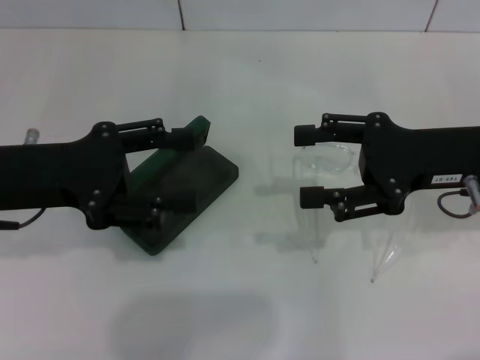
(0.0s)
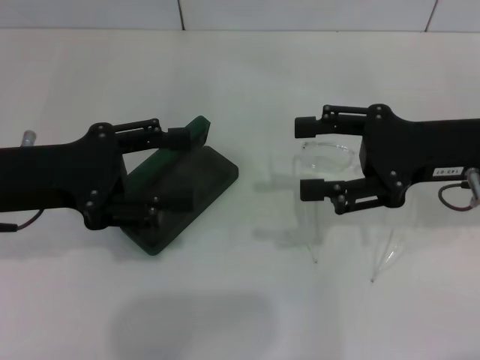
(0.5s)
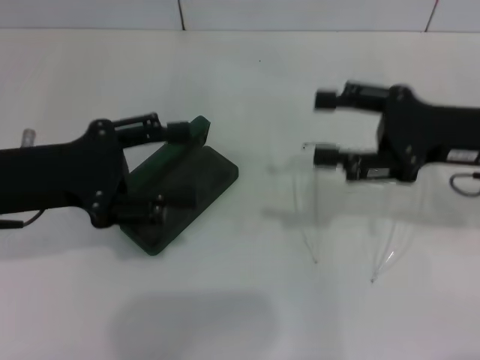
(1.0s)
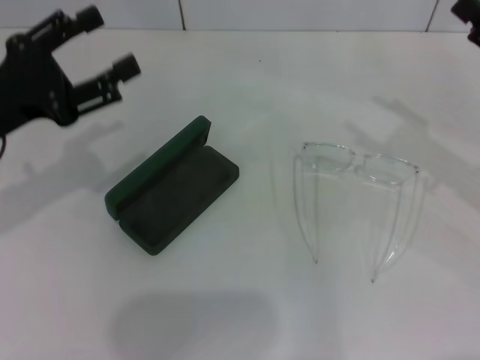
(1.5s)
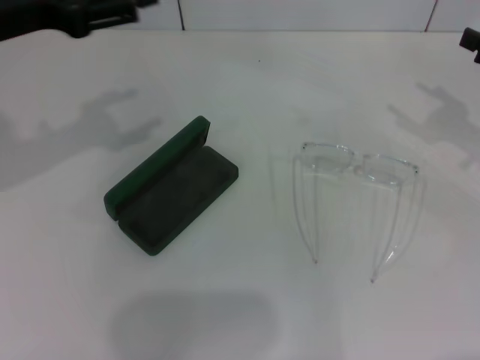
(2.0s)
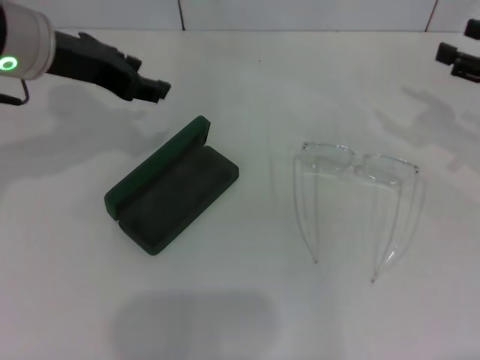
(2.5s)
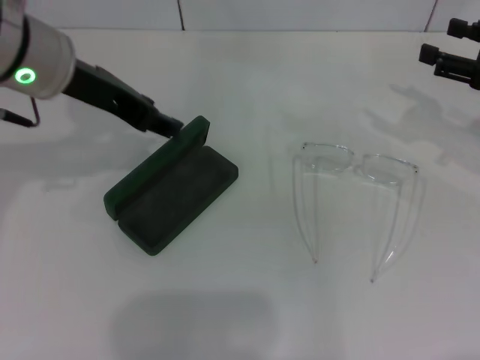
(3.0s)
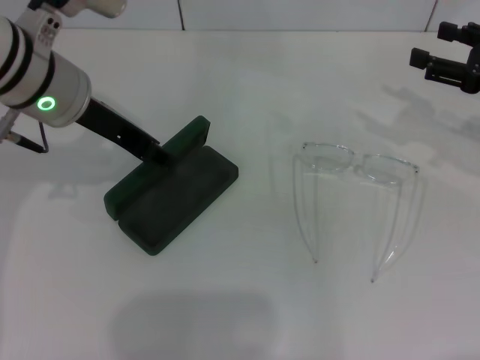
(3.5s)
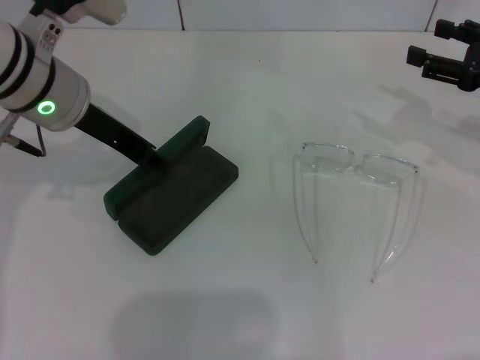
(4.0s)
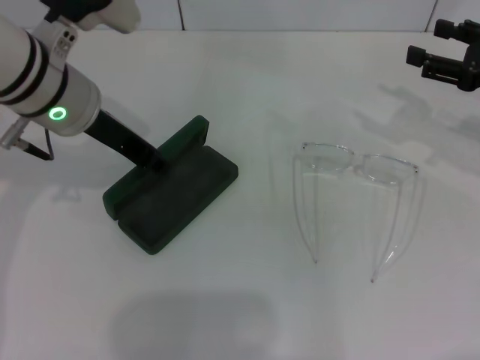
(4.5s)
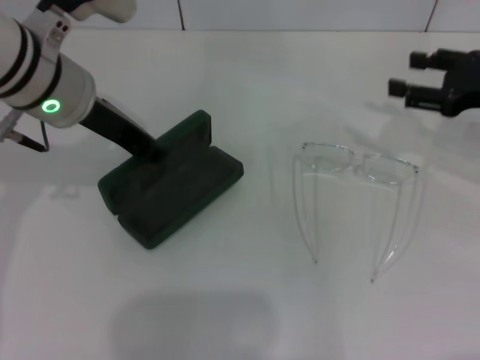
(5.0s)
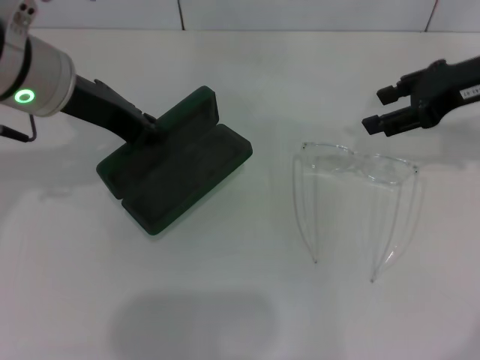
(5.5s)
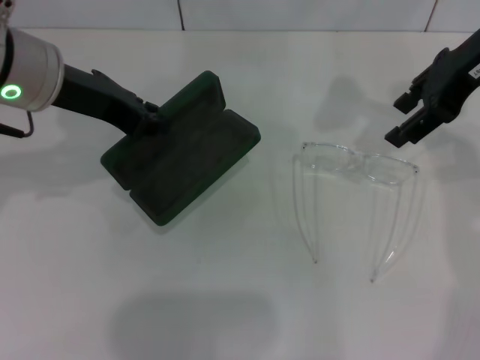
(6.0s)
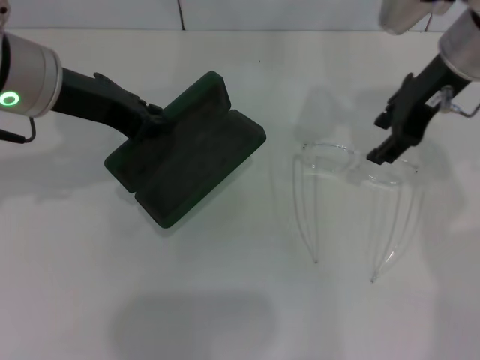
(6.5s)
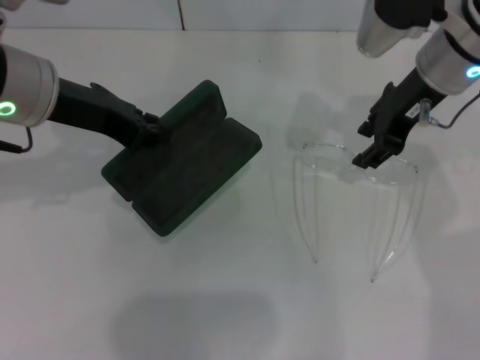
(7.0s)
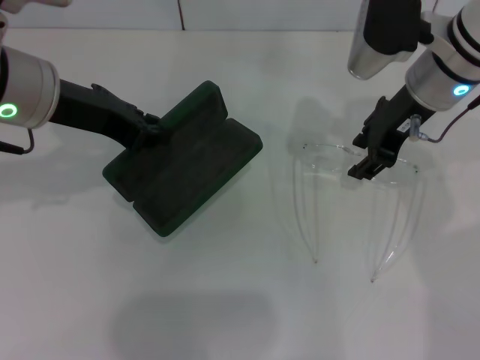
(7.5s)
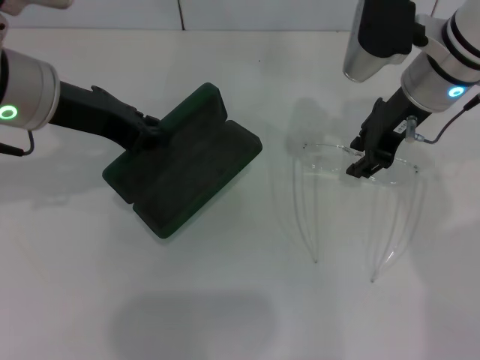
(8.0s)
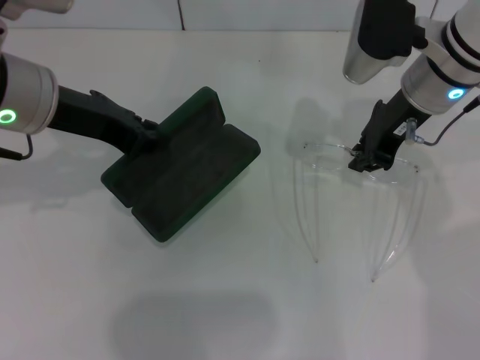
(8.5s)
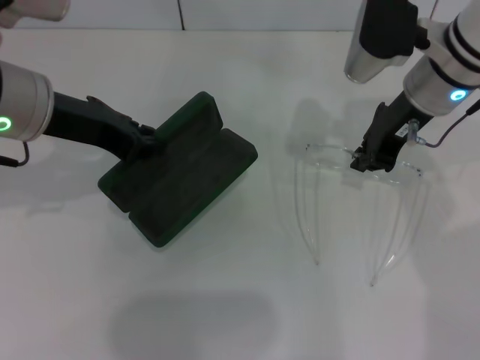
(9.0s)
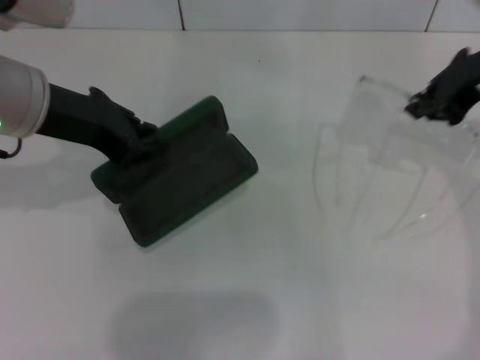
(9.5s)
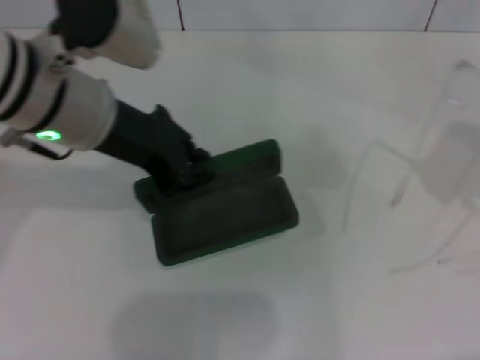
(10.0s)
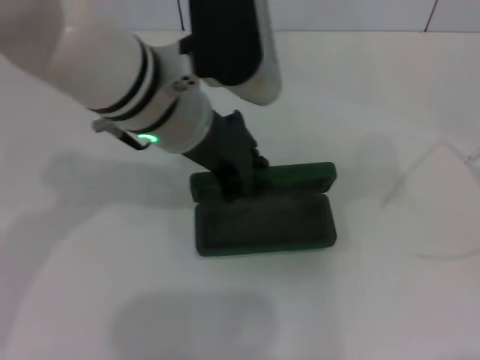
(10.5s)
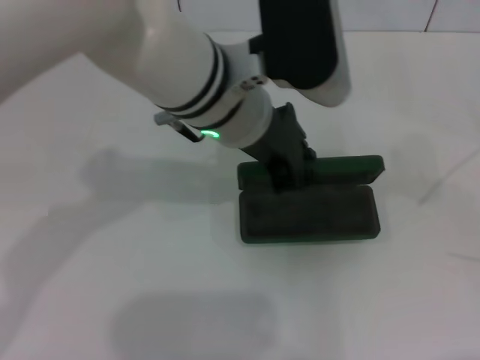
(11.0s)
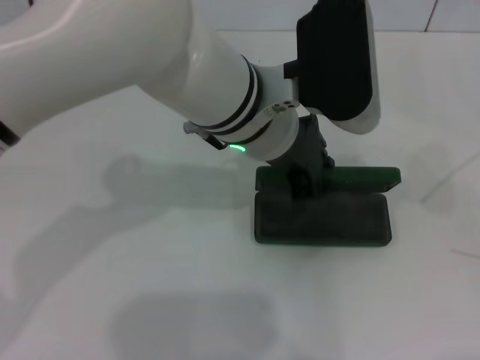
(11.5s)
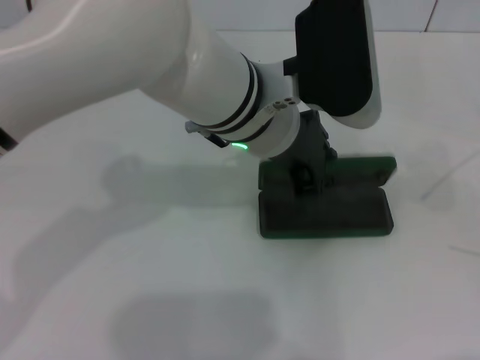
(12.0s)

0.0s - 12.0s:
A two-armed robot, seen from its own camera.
Step, 0.0s - 4.5s: Grab the glasses case with your left hand.
Step, 5.0s - 8.5s: Grab the eyeglass frame with your right hand.
0.0s - 2.0s: The right gripper shifts some 15 cm to the right. The left gripper goes approximately 10 cm upward.
2.0s - 4.0s: The left gripper is displaced to the right by approximately 10 cm.
4.0s - 6.0s: The right gripper shifts some 15 cm upward and to the left. The left gripper closes its fingers.
6.0s - 8.0s: The right gripper heads downward and to the left, covering roughly 10 cm.
8.0s - 10.0s: The left gripper goes roughly 5 cm to the right. Meanwhile the right gripper heads to the right, backward and upward, covering roughly 25 cm, and closes.
10.0s - 12.0s: The left gripper moves to the right, roughly 15 cm. The right gripper shifts roughly 15 cm to the right and backward.

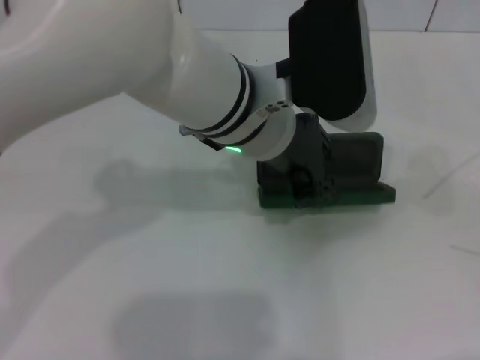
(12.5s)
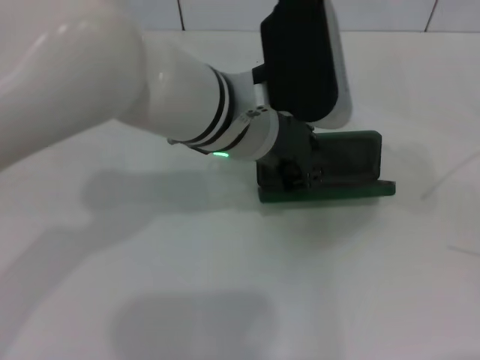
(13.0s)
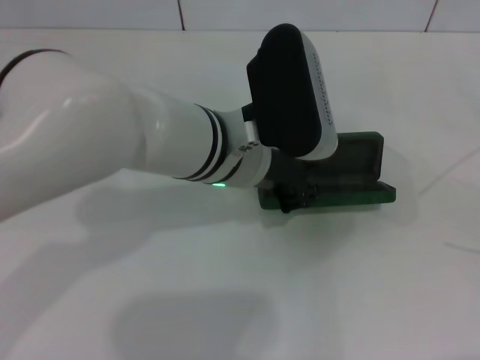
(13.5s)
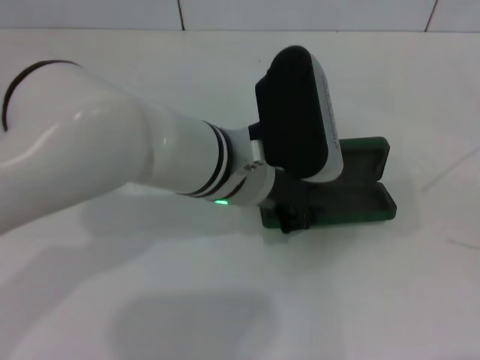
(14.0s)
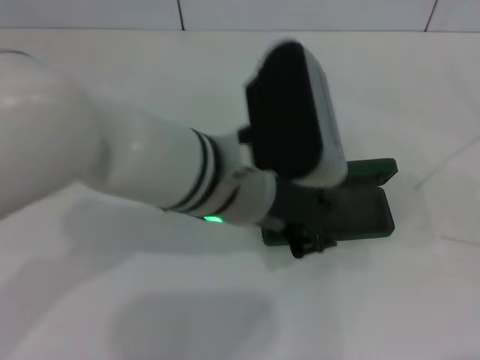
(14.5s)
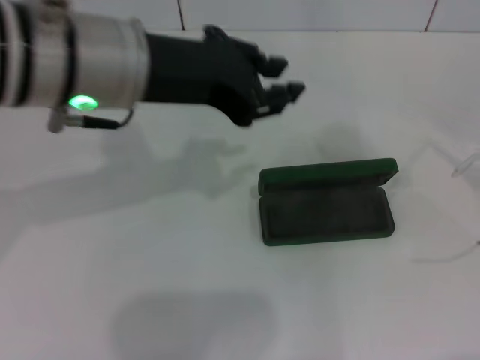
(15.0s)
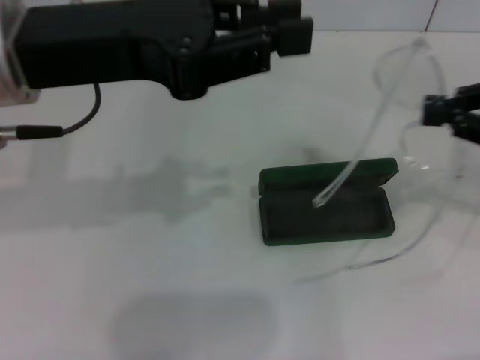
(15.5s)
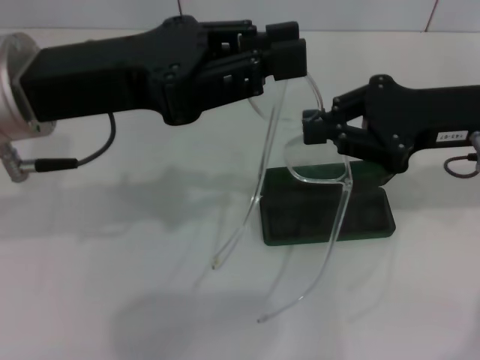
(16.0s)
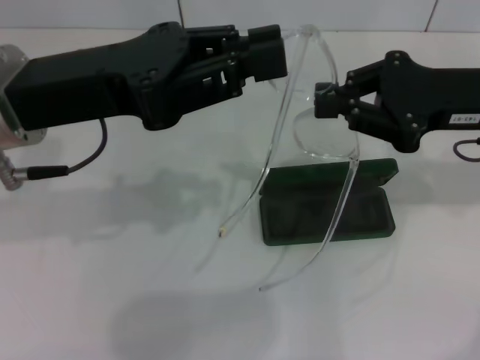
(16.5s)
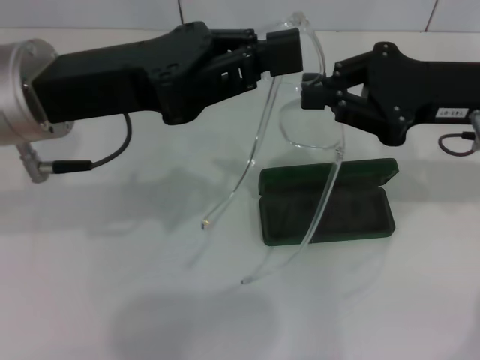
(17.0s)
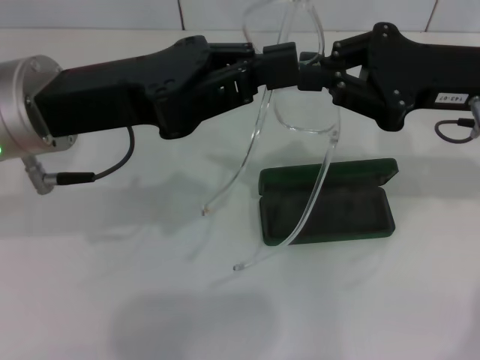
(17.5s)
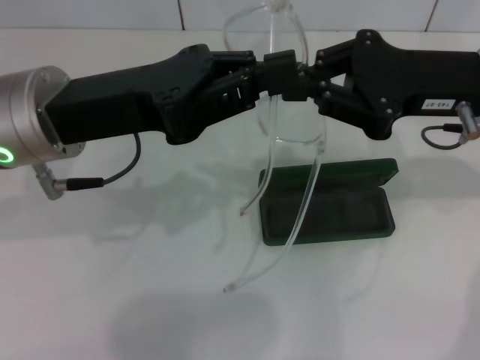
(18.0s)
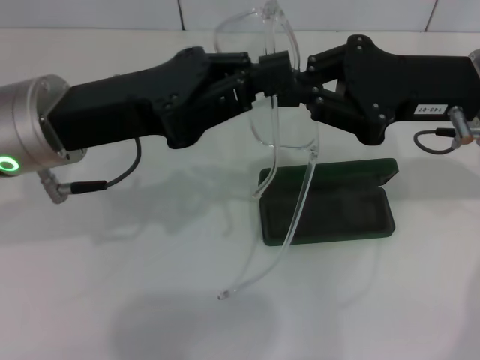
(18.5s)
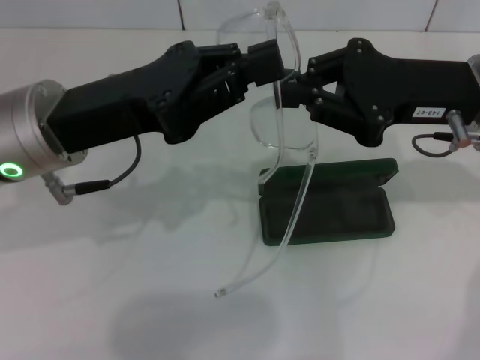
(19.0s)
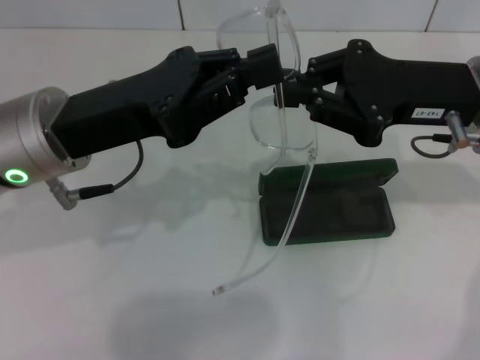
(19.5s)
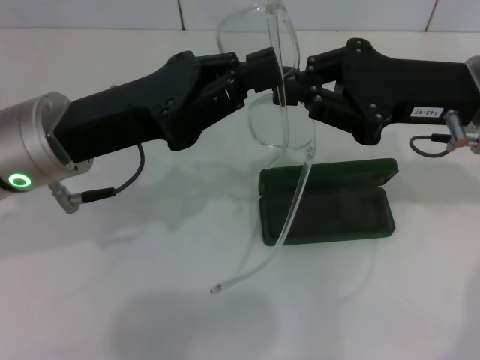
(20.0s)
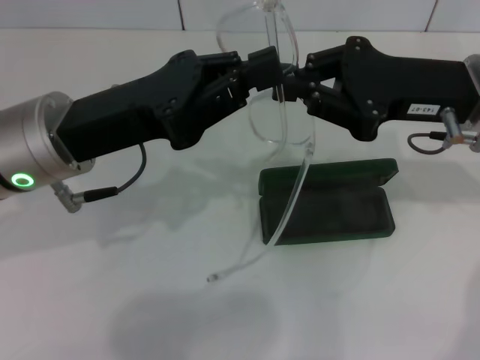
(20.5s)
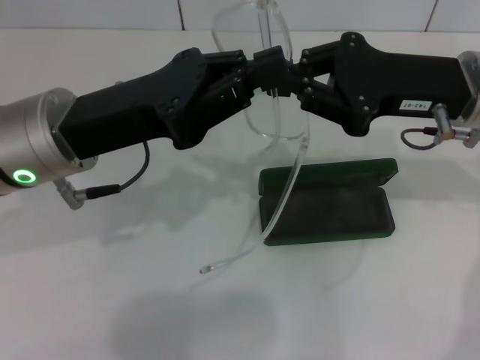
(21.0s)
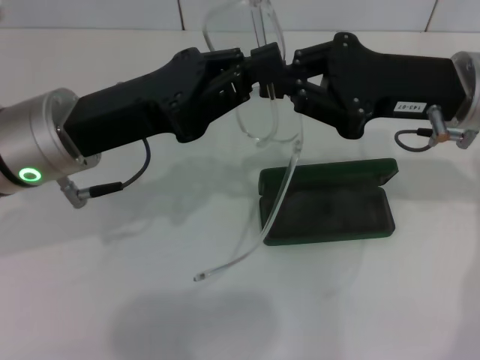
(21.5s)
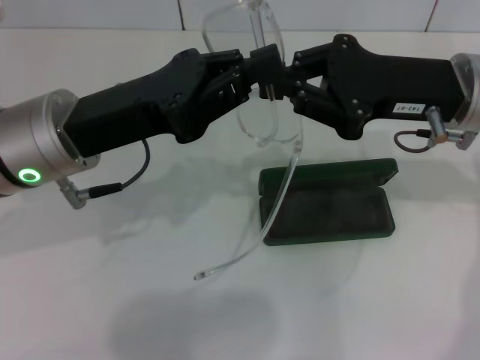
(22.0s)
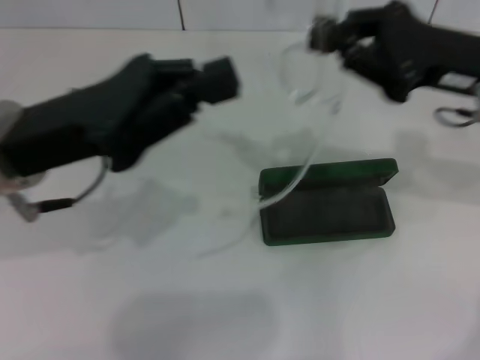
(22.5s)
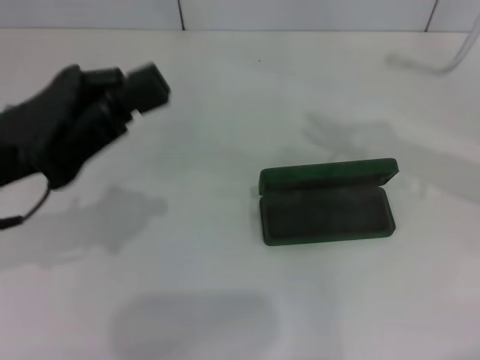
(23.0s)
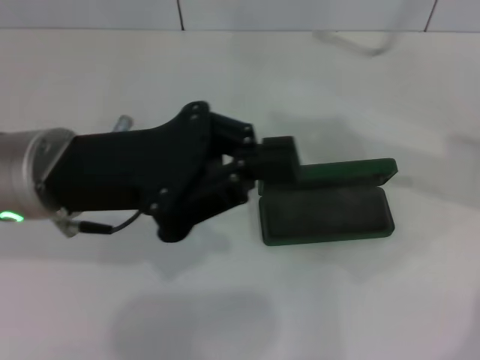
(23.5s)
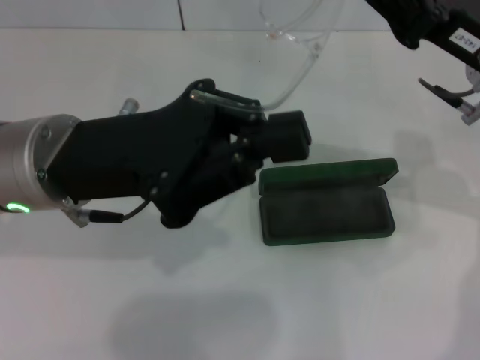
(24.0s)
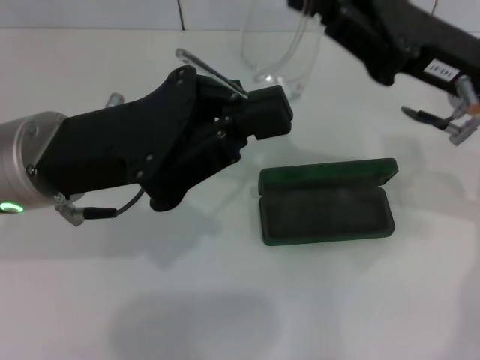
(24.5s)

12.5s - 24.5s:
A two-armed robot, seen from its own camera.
12.5s - 14.5s: The left gripper shifts by roughly 5 cm.
14.5s - 16.5s: The right gripper travels to the left and forward by about 25 cm. The left gripper shifts some 15 cm to the left.
18.5s - 20.5s: There are only small adjustments of the grippers.
22.5s - 24.5s: The right gripper goes to the right and returns, roughly 10 cm each way.

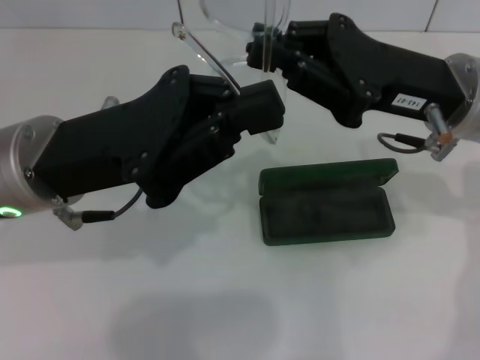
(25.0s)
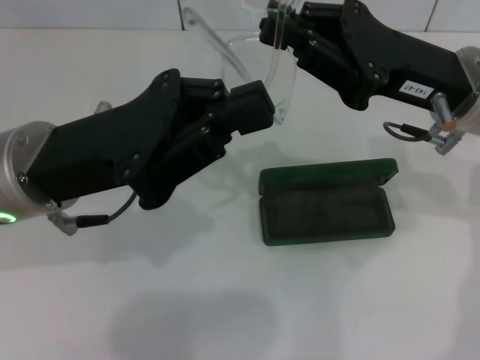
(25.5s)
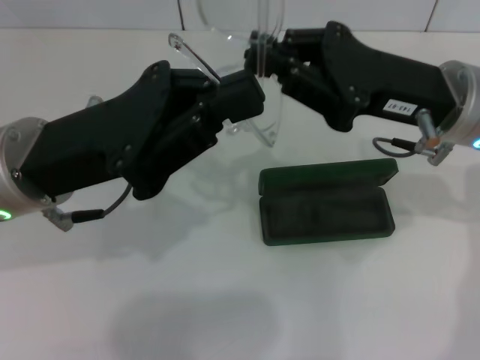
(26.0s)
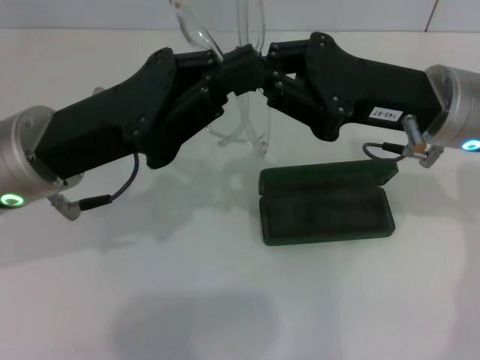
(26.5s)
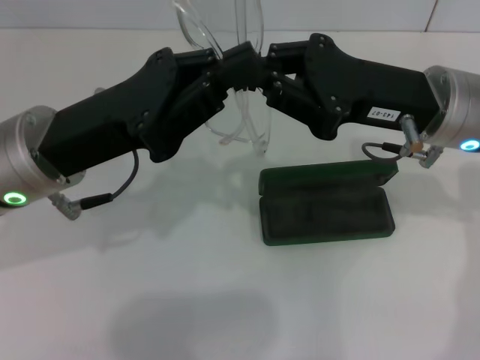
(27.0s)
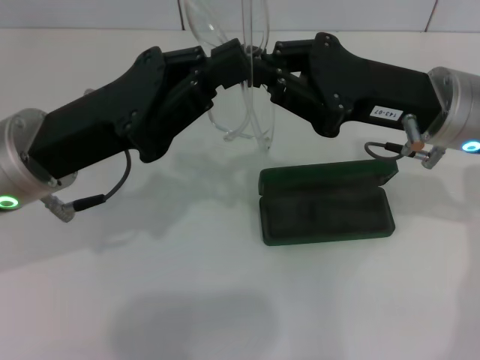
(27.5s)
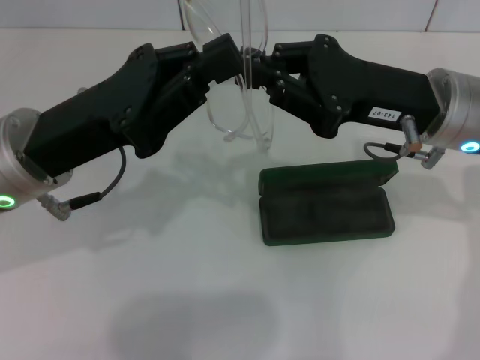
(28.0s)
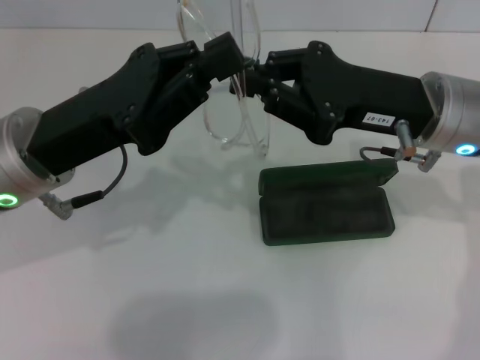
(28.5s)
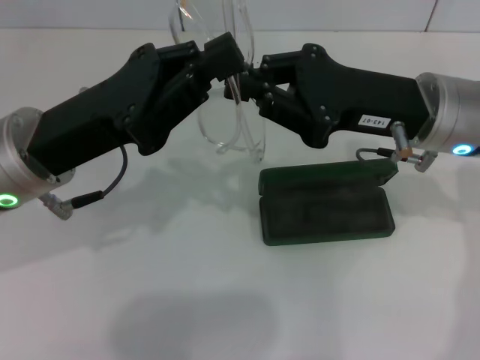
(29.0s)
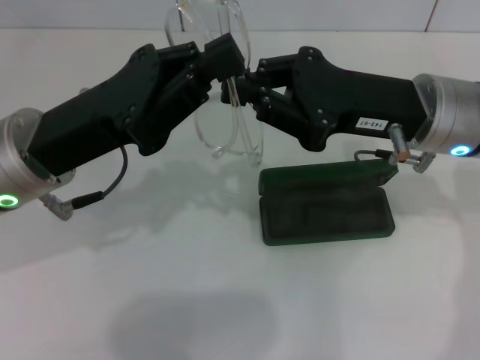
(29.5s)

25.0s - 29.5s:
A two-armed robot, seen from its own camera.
27.0s - 29.5s: The two grippers keep their place.
